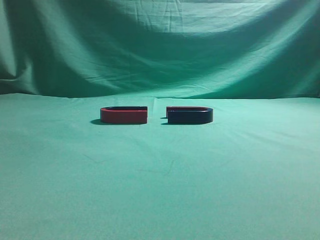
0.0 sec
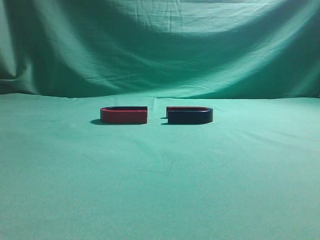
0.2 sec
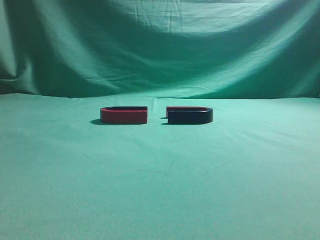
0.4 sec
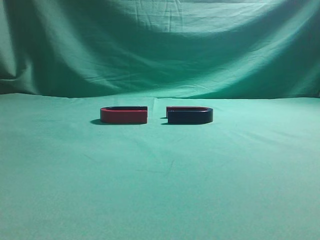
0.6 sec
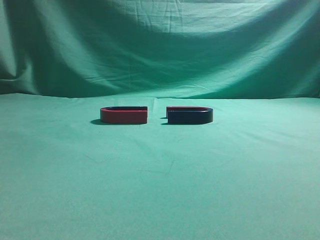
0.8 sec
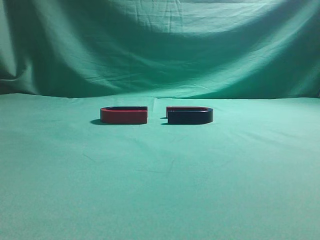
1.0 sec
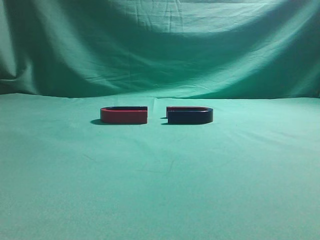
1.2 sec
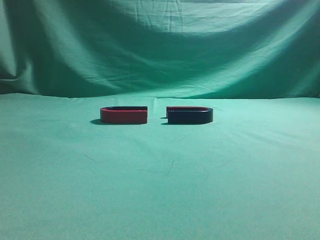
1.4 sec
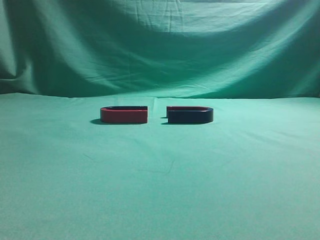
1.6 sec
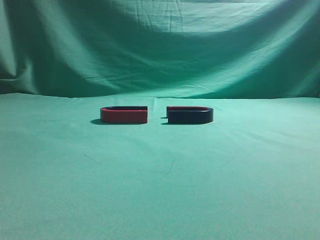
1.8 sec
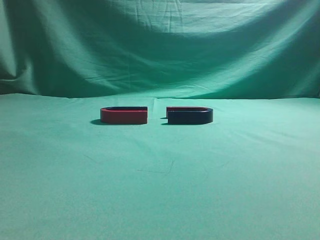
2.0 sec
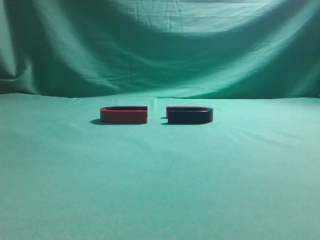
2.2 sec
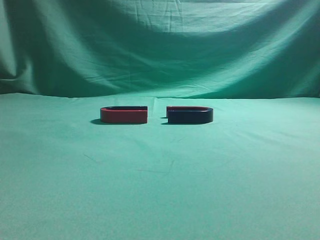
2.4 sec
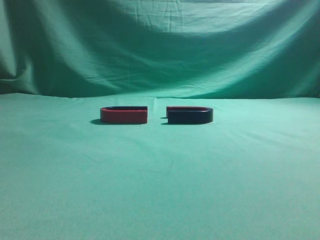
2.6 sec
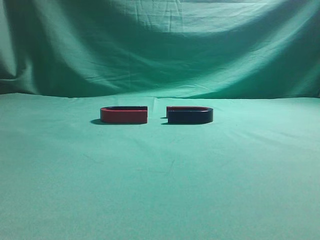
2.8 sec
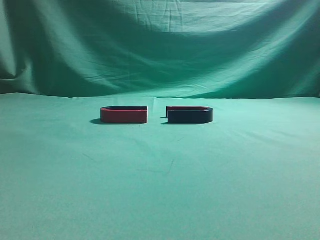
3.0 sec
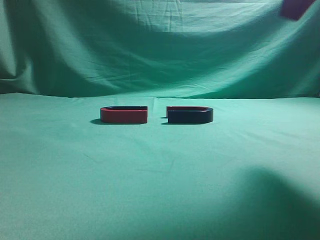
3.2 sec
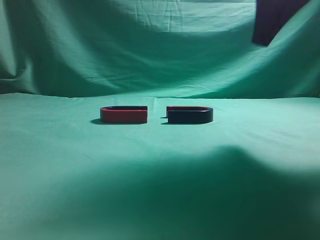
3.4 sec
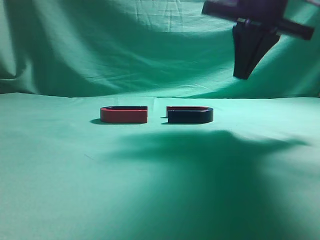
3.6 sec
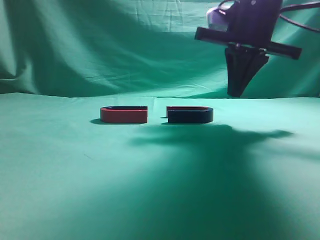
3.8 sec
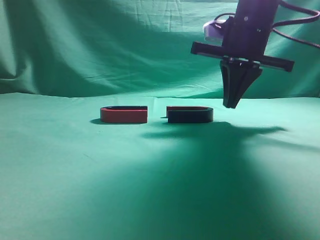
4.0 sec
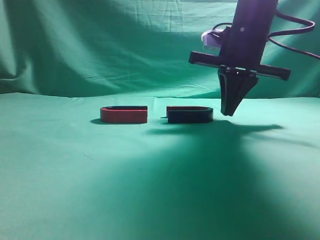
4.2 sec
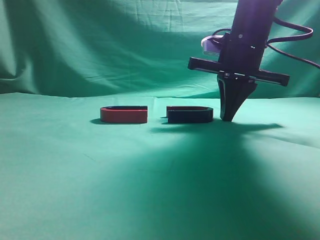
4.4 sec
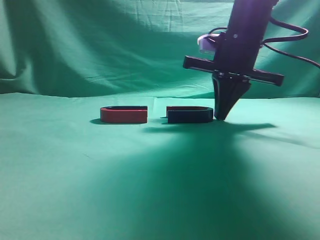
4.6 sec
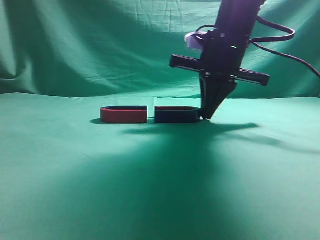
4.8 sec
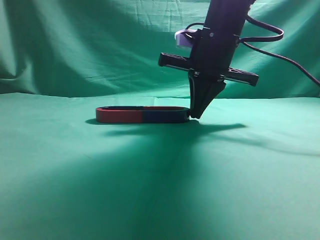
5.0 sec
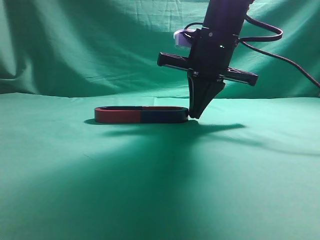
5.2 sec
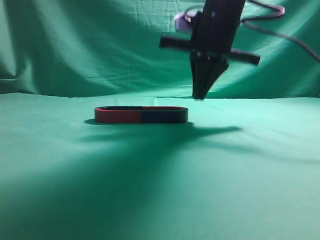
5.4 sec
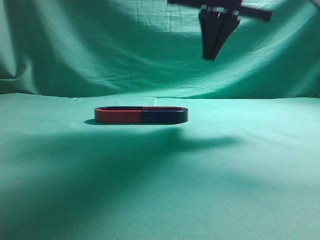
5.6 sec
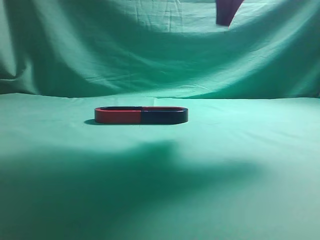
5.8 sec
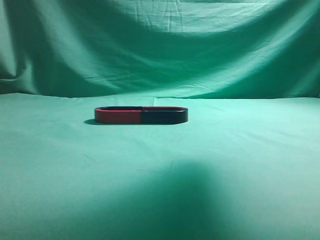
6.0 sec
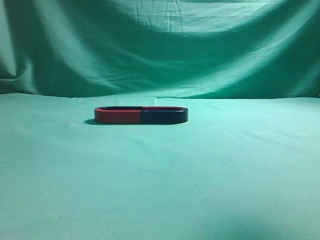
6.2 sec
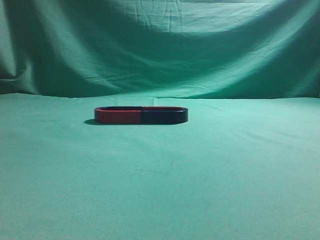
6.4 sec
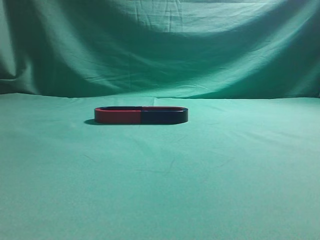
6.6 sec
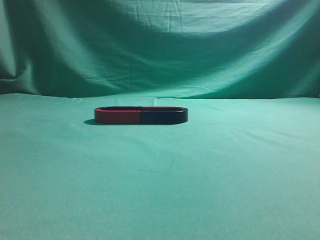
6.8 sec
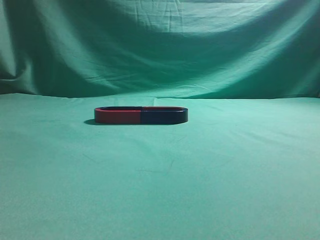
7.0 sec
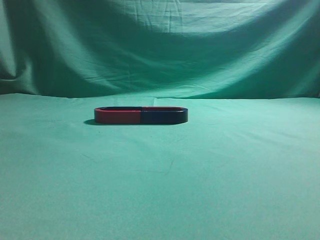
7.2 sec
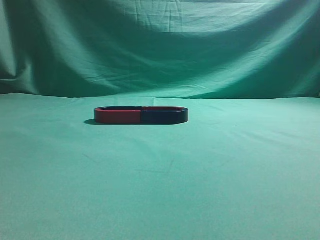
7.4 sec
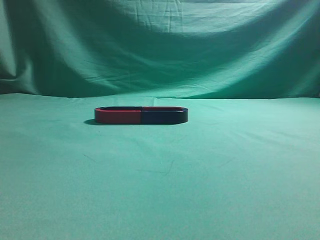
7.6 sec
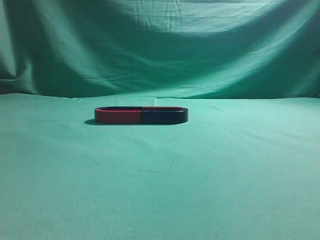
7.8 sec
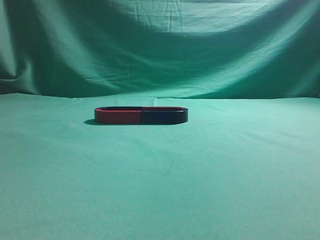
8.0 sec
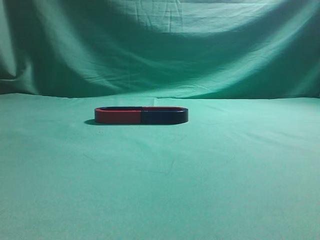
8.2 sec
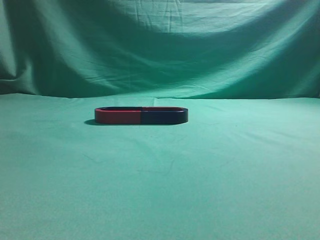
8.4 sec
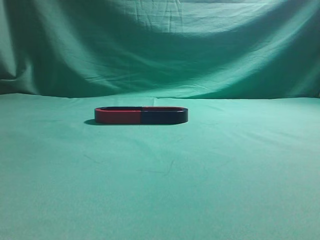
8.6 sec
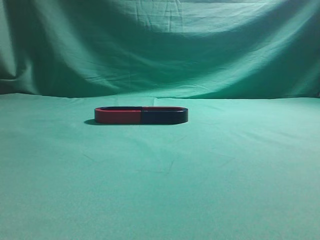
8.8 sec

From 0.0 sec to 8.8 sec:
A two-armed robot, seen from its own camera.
Task of the whole recording: push the magnet on the table from its original position to another position.
Step, from 0.0 sec to 5.2 sec: Push the magnet on the right to connect the magnet on the left.
From 3.0 sec to 4.4 sec: The right gripper travels forward, downward and to the left by about 25 cm.
From 4.4 sec to 5.8 sec: The right gripper is displaced upward by approximately 15 cm.
From 5.8 sec to 7.4 sec: The right gripper heads backward and to the right, covering approximately 30 cm.
